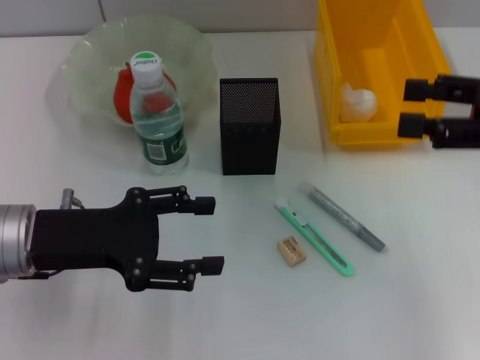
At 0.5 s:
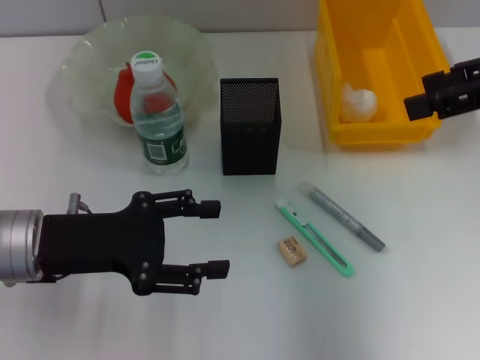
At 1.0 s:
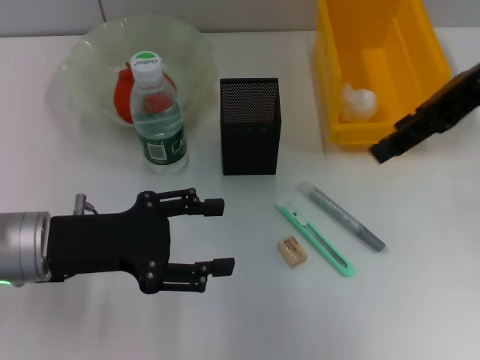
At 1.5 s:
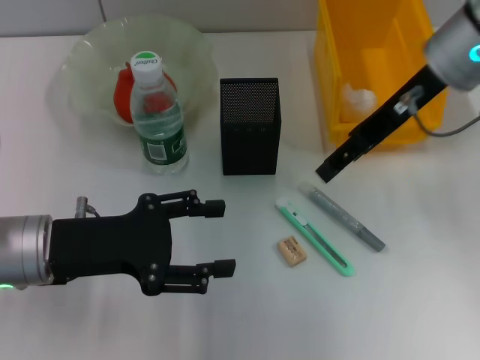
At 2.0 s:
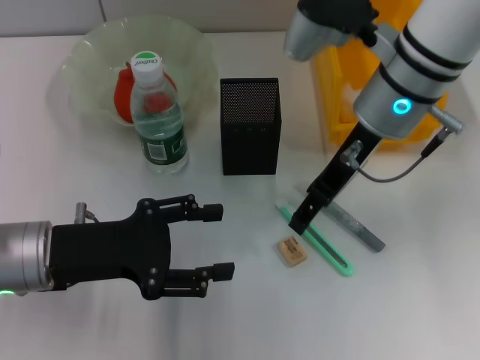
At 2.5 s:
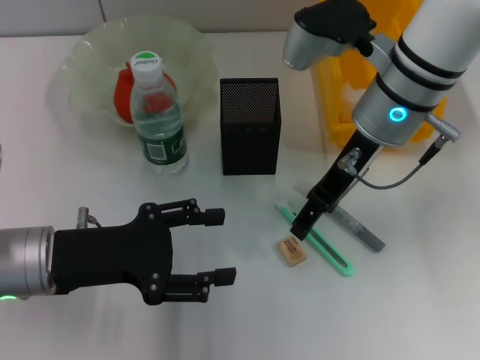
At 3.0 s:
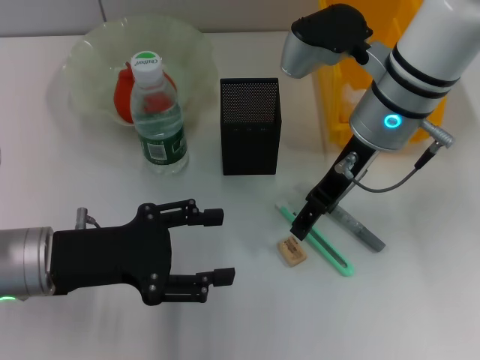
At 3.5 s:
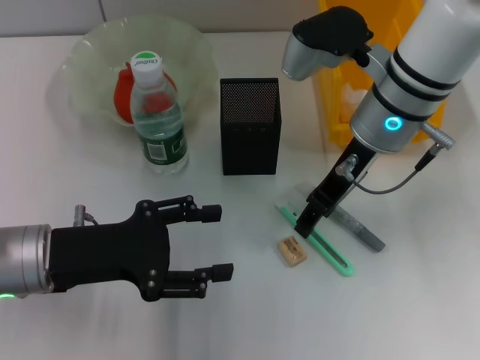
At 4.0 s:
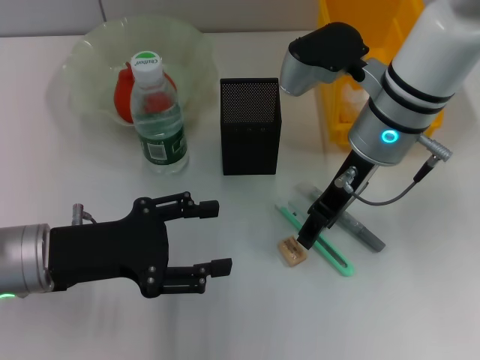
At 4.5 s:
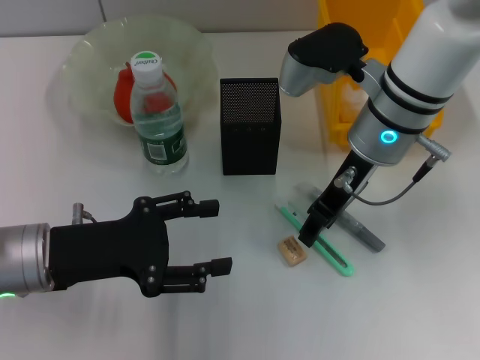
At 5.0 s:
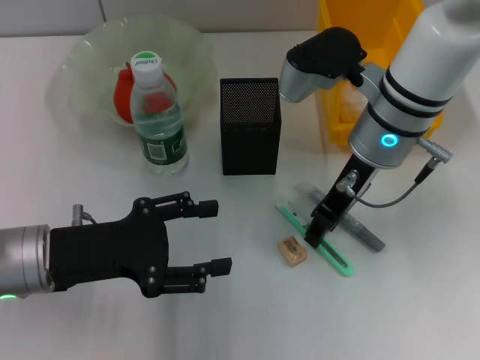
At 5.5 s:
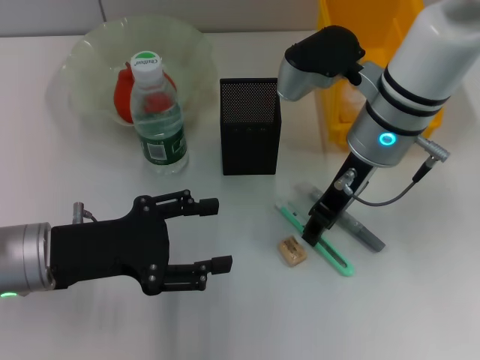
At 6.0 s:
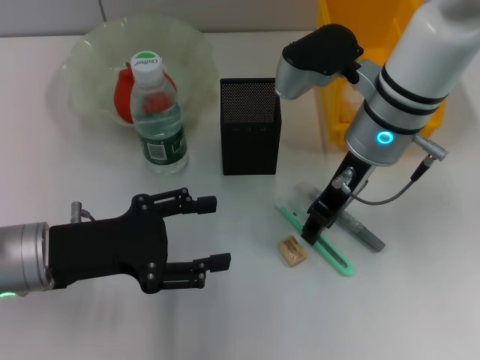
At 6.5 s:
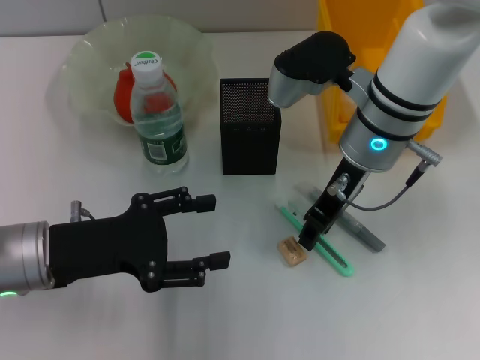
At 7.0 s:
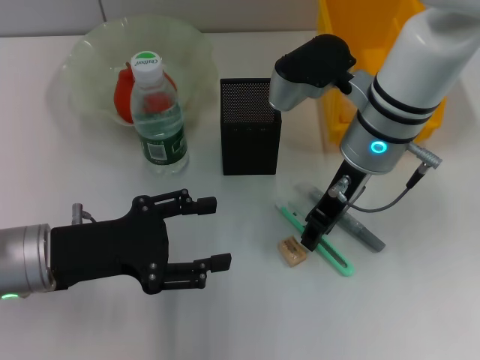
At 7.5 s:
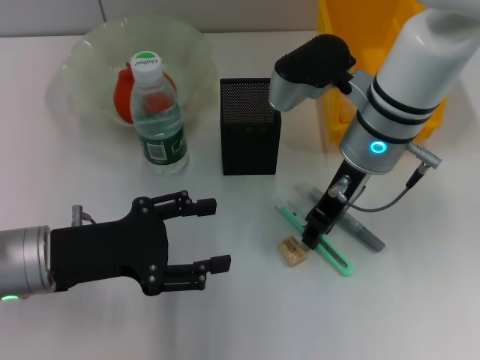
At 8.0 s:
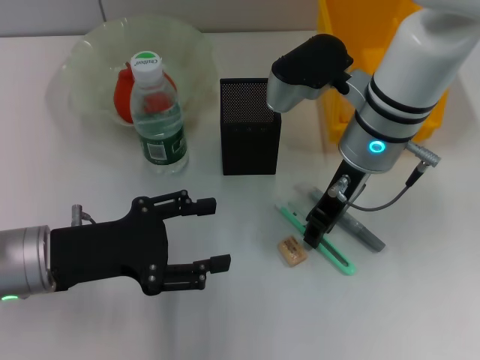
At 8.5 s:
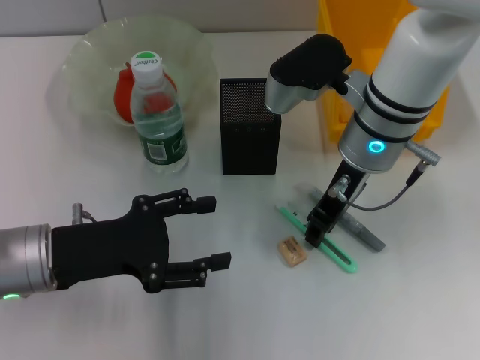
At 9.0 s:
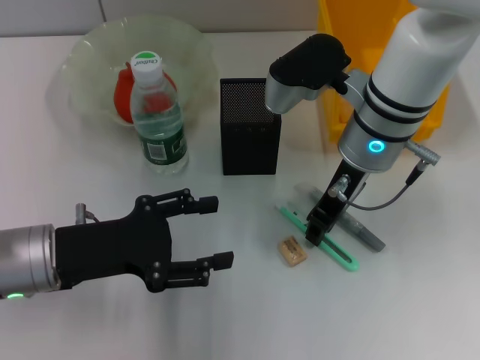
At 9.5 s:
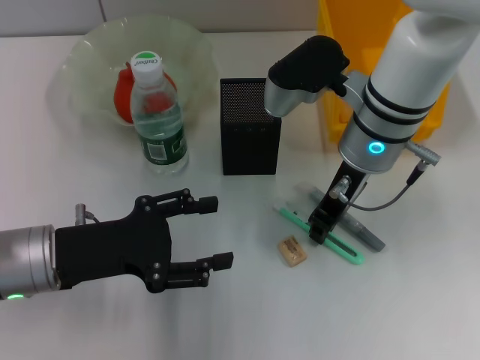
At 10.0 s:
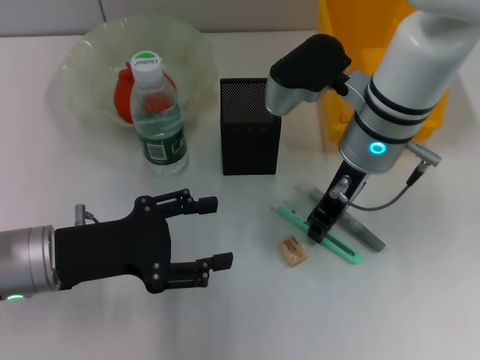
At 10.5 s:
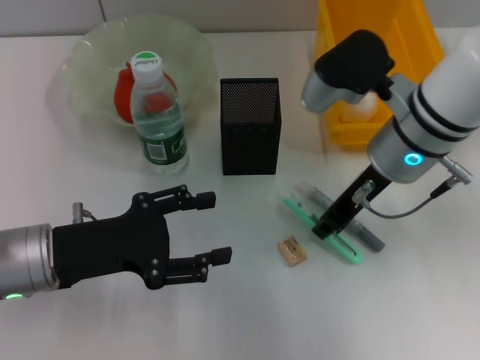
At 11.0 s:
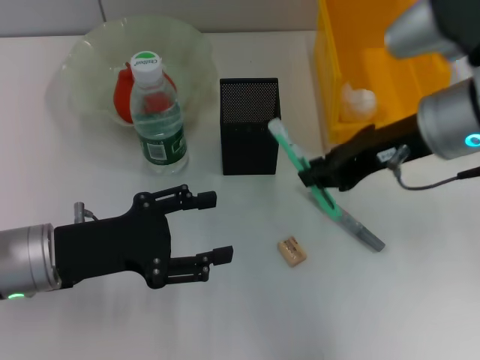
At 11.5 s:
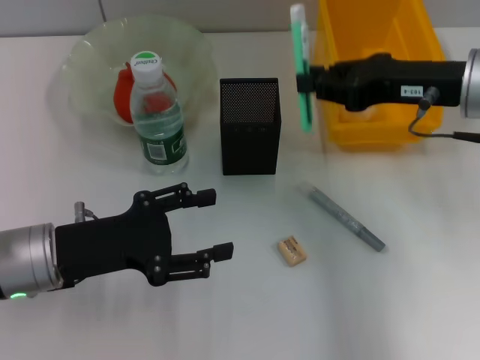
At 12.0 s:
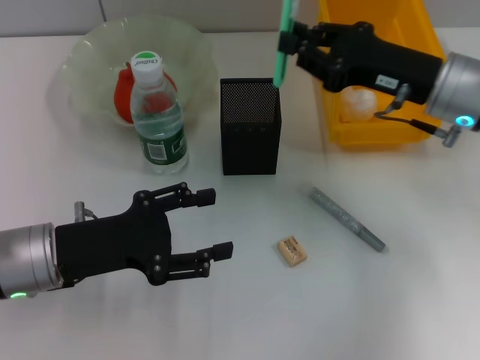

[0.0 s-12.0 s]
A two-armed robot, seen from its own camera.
Step, 0.0 to 9.5 s: Grab the blue utility knife with the right hand.
0.0 to 2.0 s: The right gripper travels to the left and forward by approximately 20 cm.
2.0 to 4.0 s: The grippers move only a little.
4.0 to 6.0 s: Both grippers stay about where they are.
6.0 to 8.0 s: Both grippers stay about where they are.
8.0 to 10.0 s: The two grippers keep their place.
10.0 to 12.0 s: The right gripper is displaced to the right by about 10 cm.

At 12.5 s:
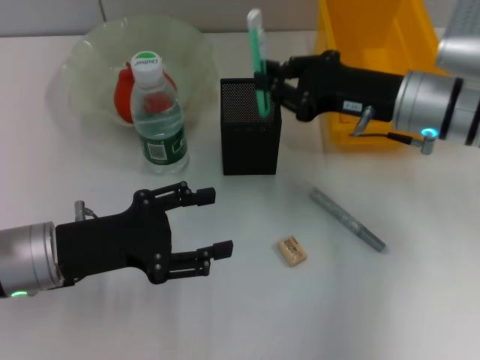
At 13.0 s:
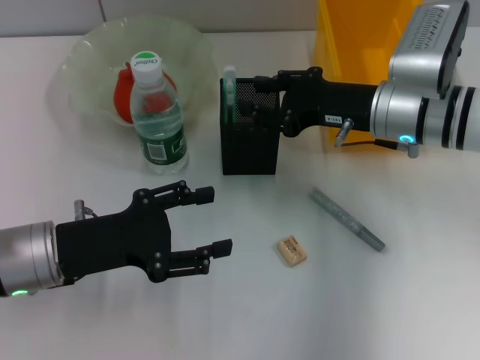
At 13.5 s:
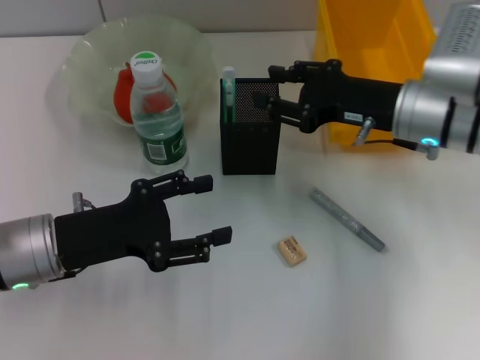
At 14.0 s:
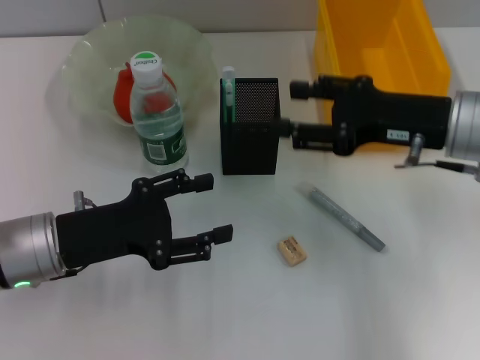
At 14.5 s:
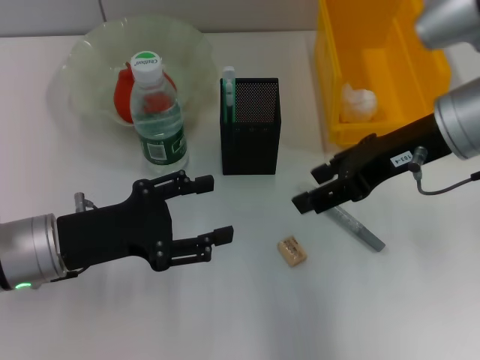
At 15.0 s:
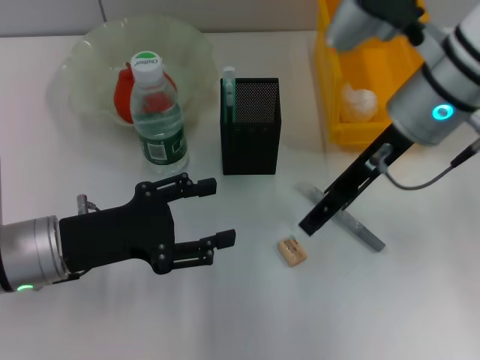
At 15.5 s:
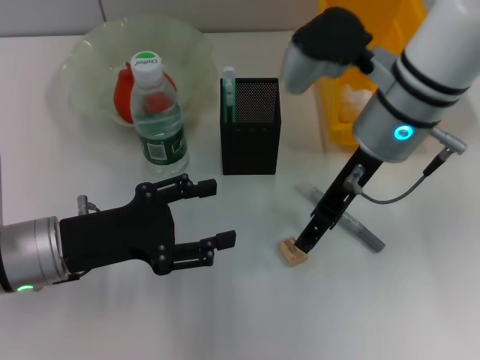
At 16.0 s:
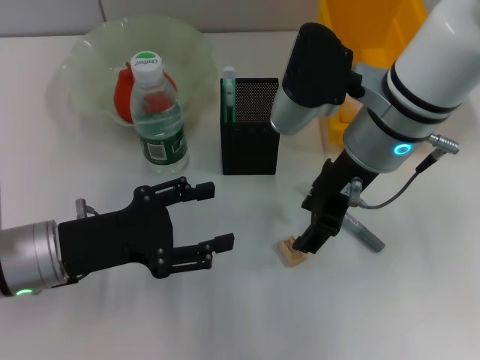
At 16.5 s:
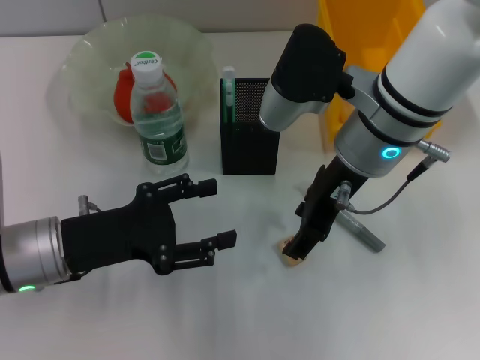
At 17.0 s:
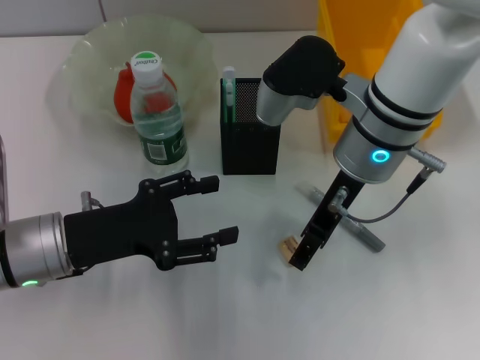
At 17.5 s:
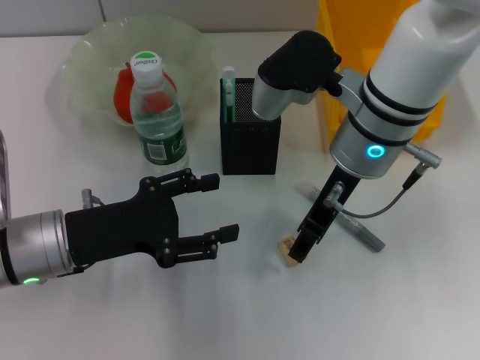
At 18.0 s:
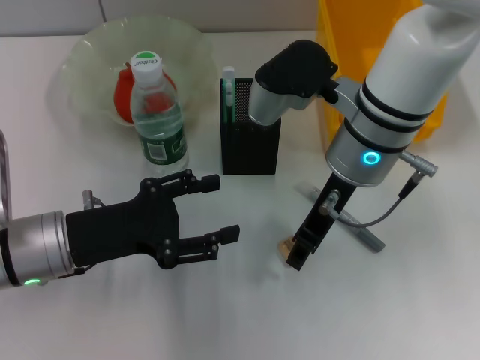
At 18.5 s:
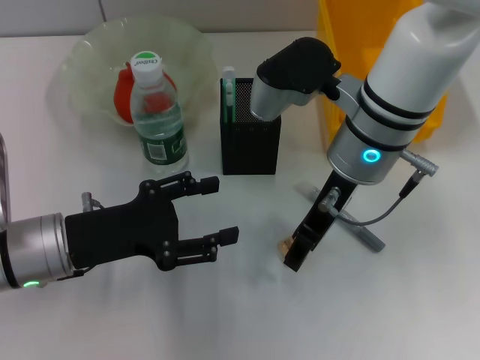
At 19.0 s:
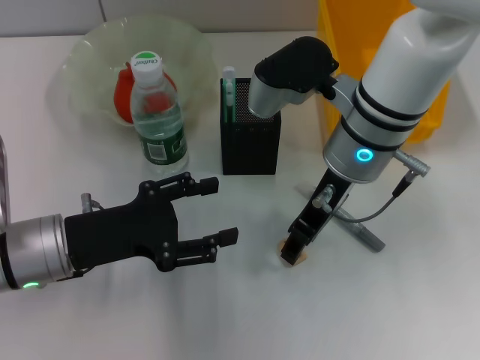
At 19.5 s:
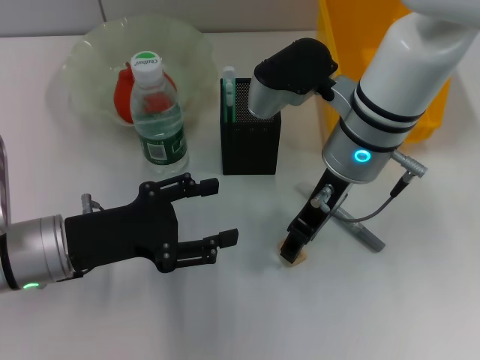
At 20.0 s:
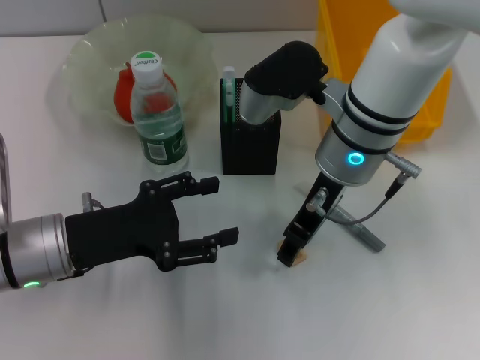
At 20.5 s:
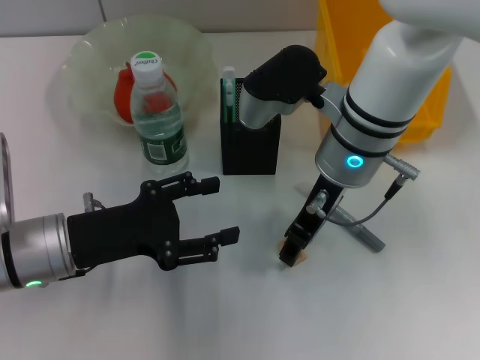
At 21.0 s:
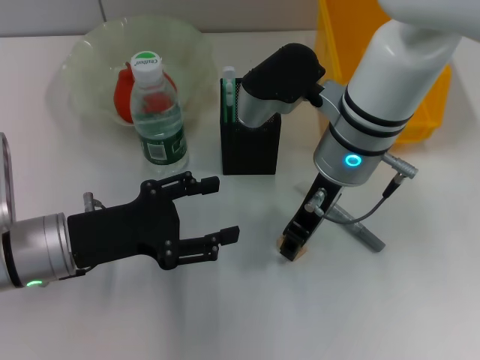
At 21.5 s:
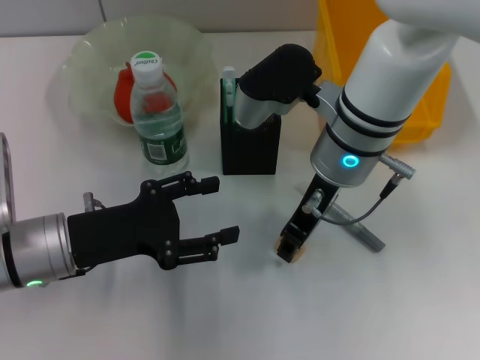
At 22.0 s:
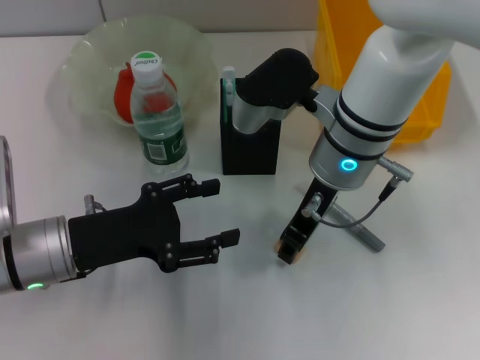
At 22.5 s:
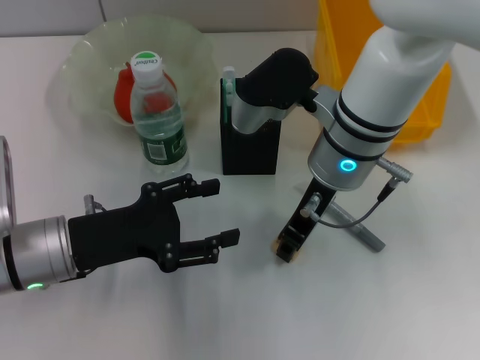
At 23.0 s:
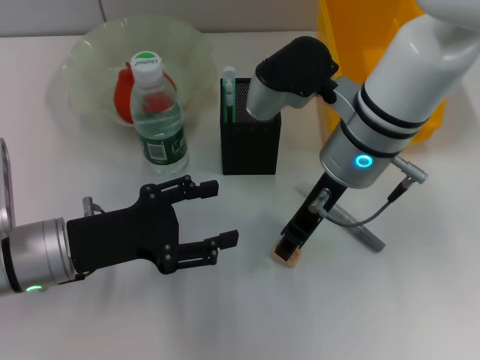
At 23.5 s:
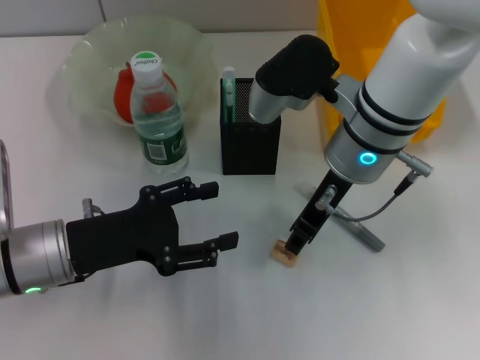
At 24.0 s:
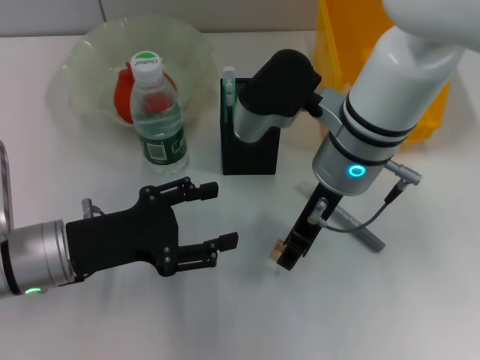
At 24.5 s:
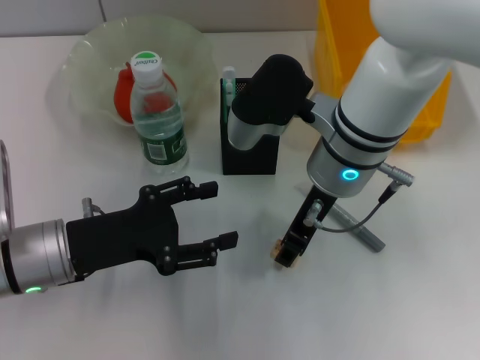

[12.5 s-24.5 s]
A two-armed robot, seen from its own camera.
12.5 to 14.5 s: The right gripper heads upward, covering approximately 10 cm, and opens its fingers.
14.5 to 16.5 s: The right gripper goes about 10 cm to the left.
16.5 to 20.5 s: The grippers move only a little.
20.5 to 22.5 s: Both grippers stay put.
22.5 to 24.5 s: The grippers move only a little.

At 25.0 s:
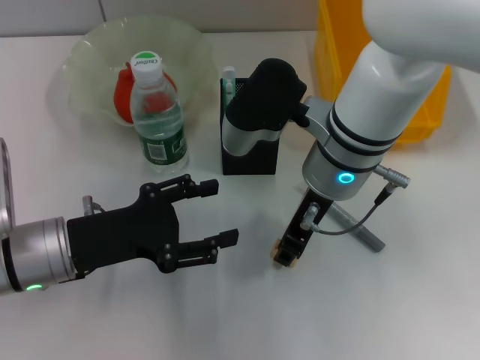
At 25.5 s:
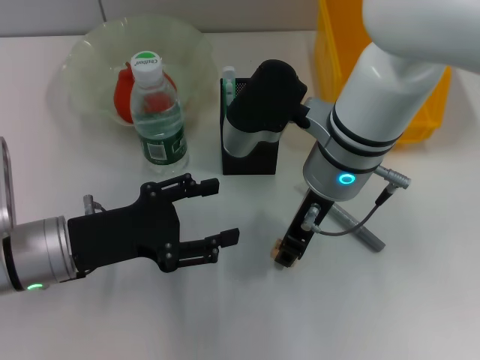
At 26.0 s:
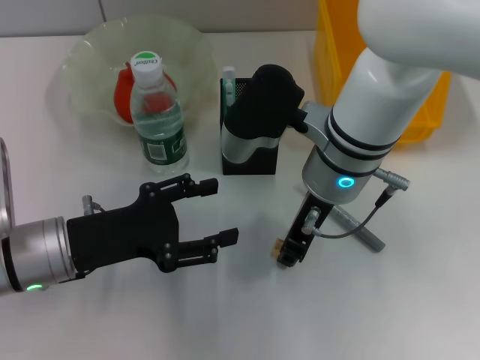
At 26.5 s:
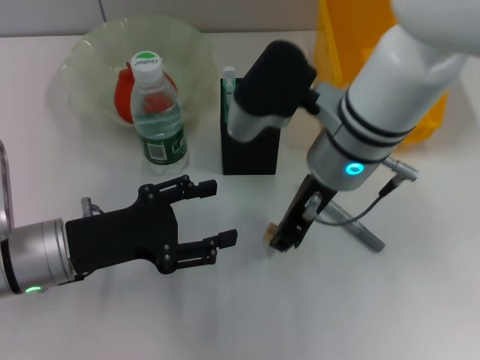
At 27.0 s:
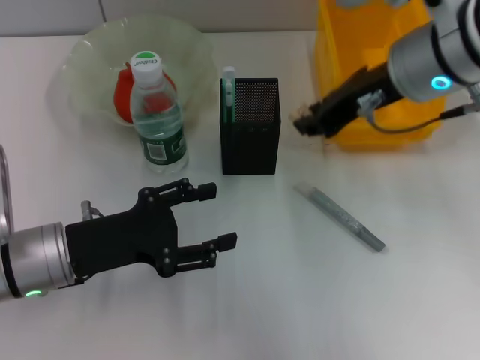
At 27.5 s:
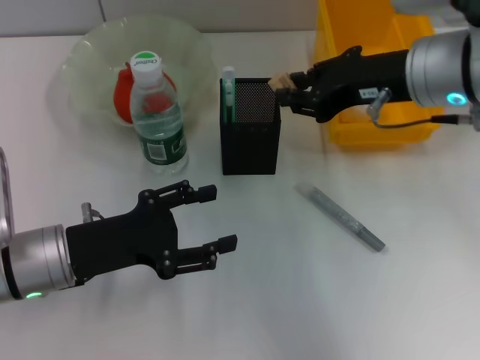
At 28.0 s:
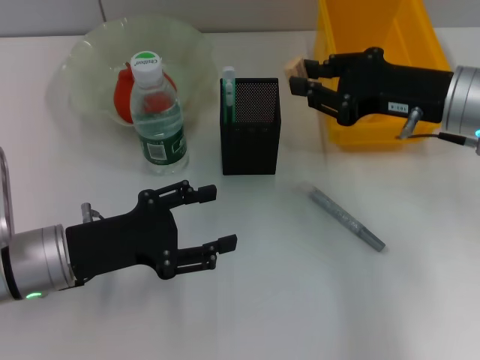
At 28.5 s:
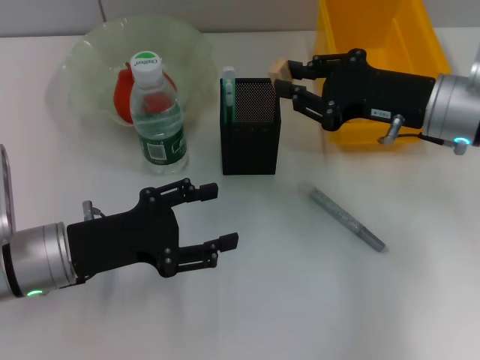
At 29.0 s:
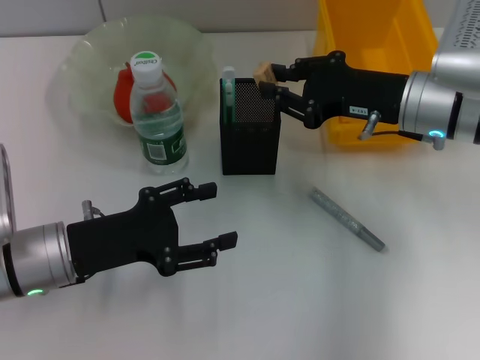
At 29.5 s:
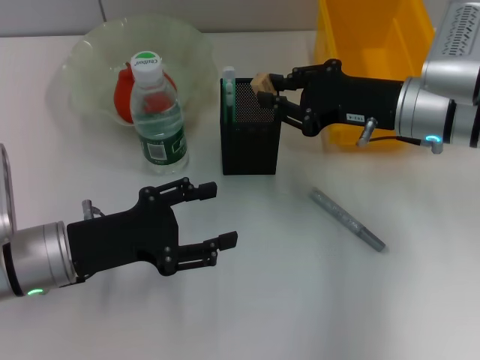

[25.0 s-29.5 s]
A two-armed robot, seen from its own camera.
25.0 to 27.0 s: The right gripper travels upward and to the right by about 10 cm.
27.0 to 29.5 s: The right gripper is displaced downward by roughly 10 cm.
